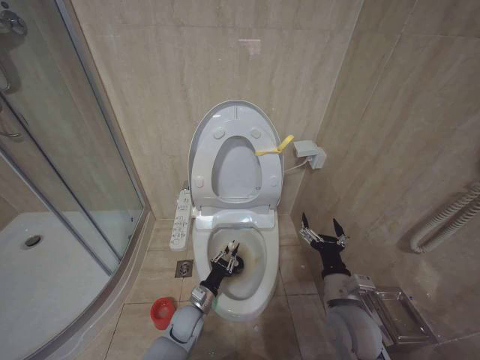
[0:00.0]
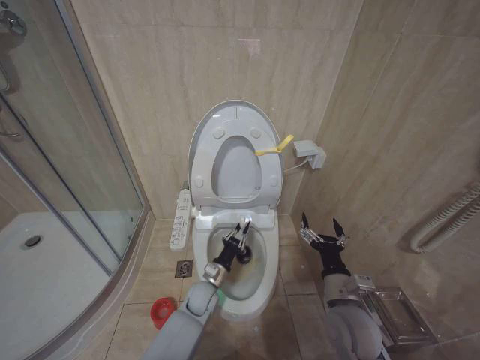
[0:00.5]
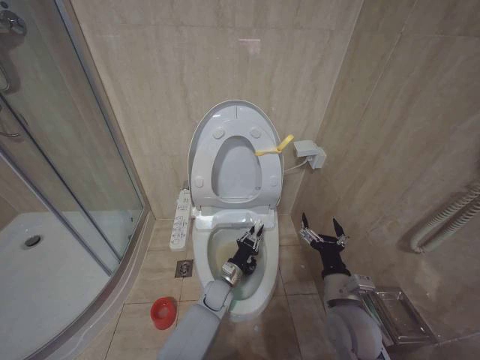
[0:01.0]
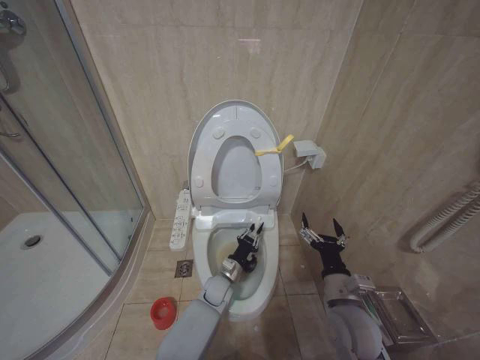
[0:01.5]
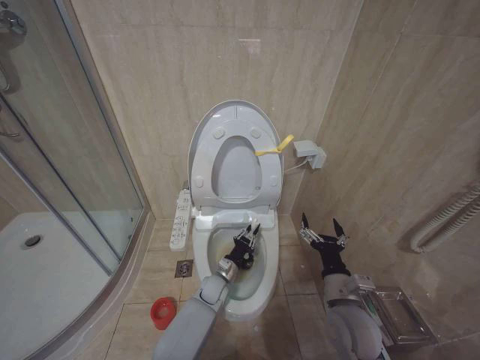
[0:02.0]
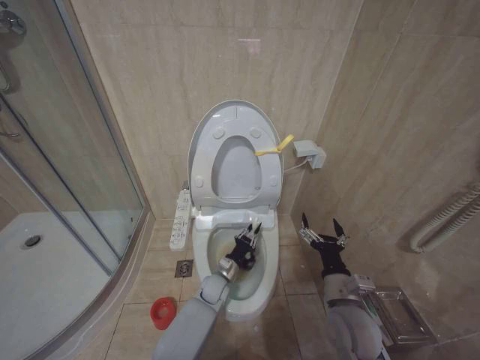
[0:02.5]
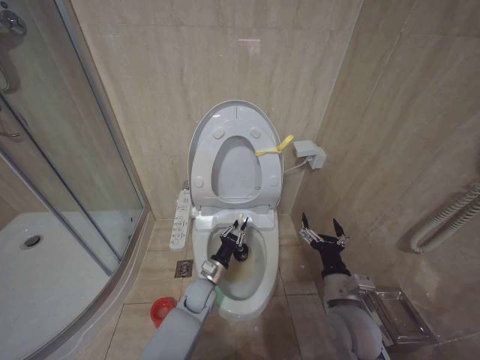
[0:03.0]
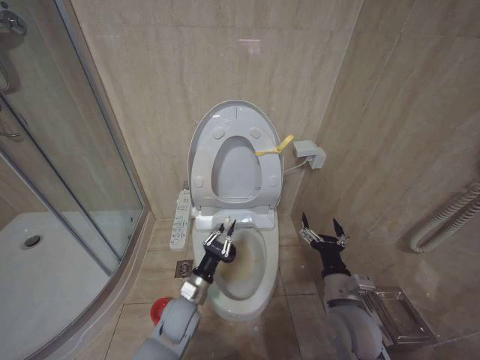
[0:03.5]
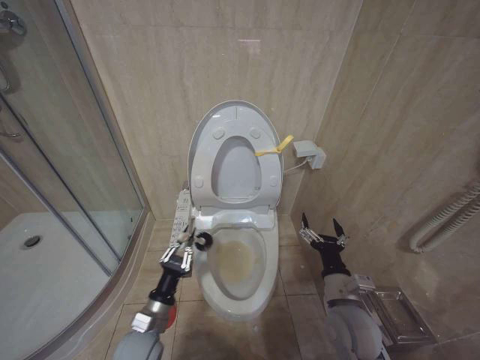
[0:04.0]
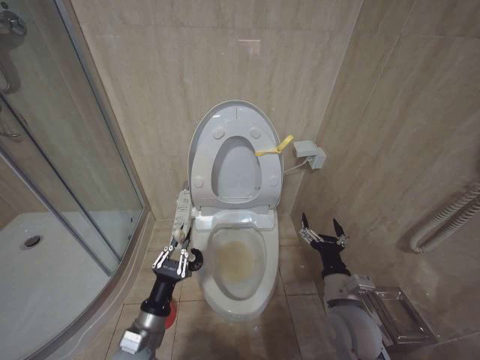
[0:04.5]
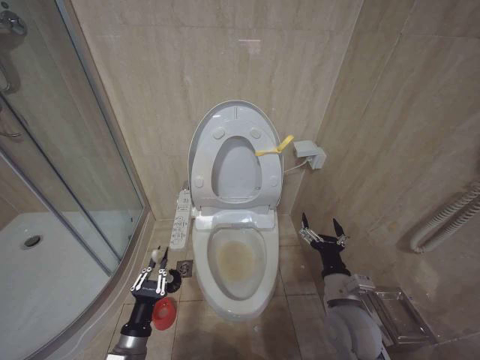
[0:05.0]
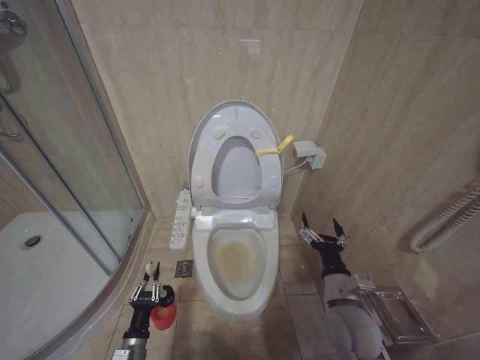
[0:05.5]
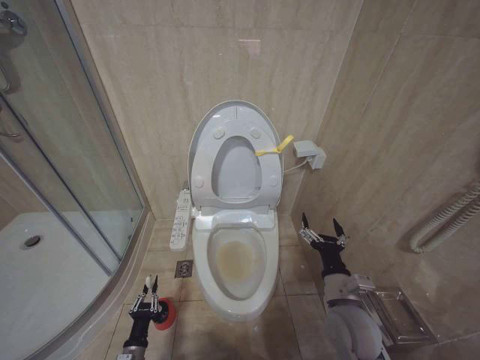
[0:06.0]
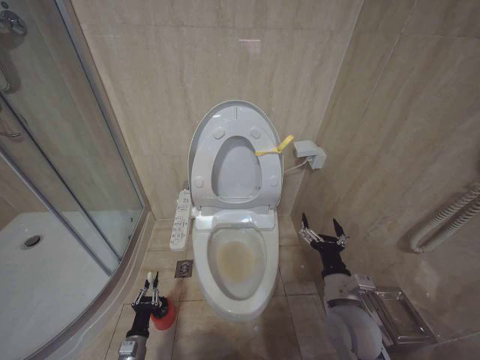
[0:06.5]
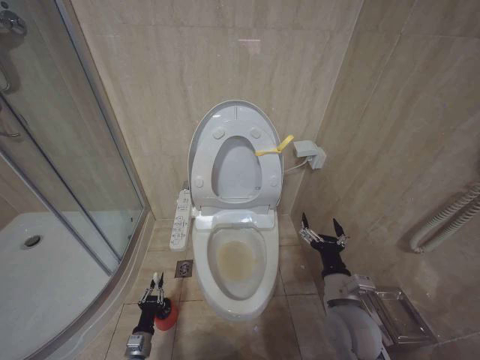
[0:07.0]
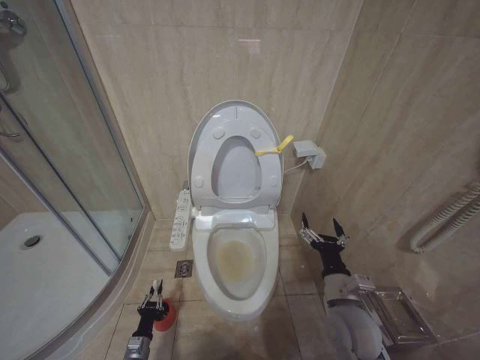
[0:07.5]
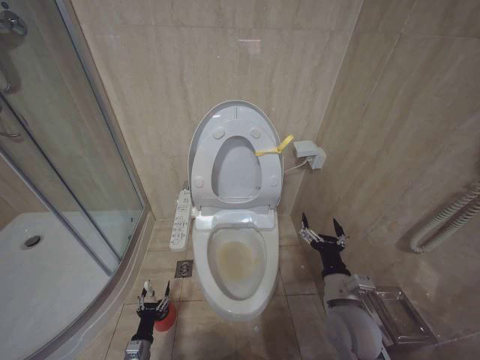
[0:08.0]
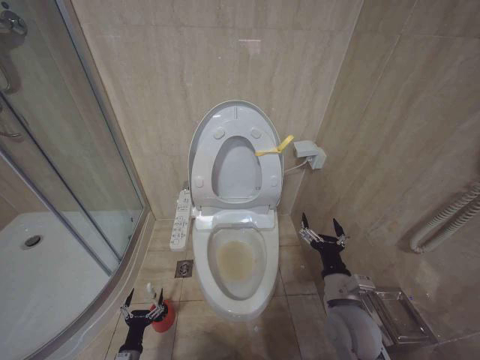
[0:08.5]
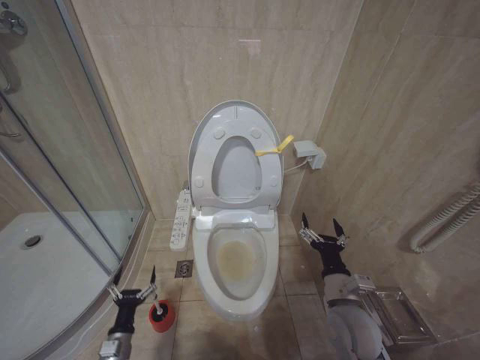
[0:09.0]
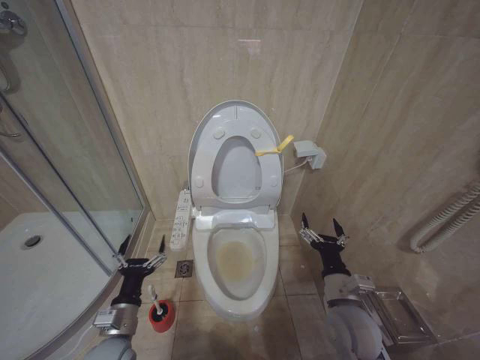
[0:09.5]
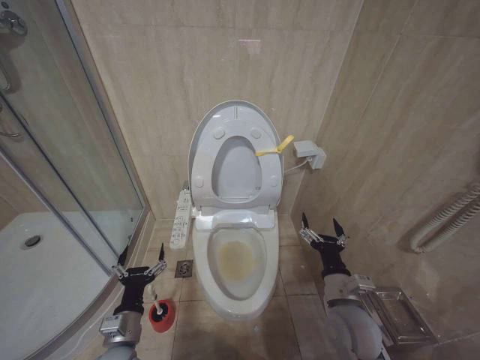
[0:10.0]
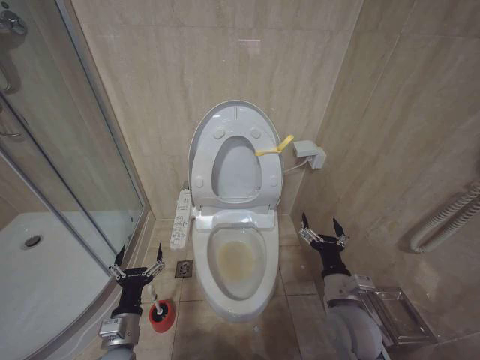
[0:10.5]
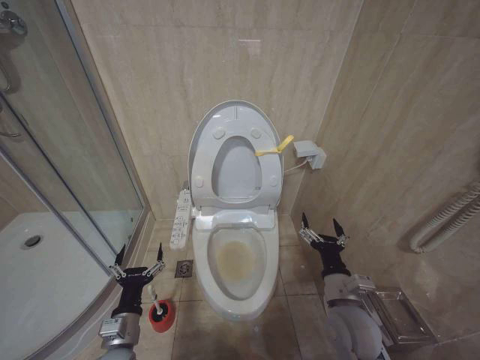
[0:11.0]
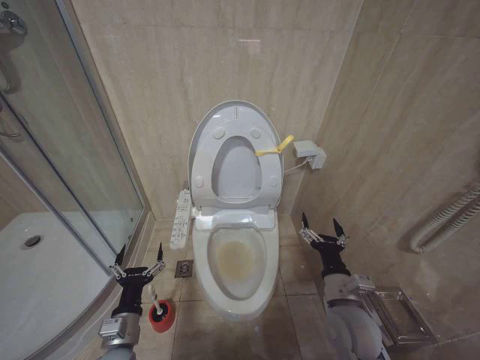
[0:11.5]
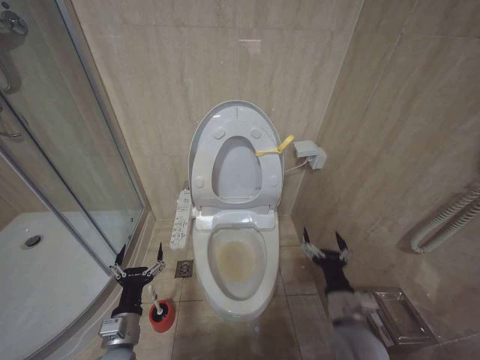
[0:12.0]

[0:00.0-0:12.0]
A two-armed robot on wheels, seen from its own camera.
Task of the whole recording: Open the toilet lid, clean the toilet bowl with a toilet brush, close the toilet lid, and flush.
0:00.0 to 0:02.0: The left gripper travels to the right and forward by about 10 cm.
0:02.0 to 0:04.0: The left gripper shifts approximately 25 cm backward, to the left and upward.
0:04.0 to 0:06.0: The left gripper goes about 20 cm downward and to the left.
0:06.0 to 0:08.0: The left gripper ends up roughly 5 cm from where it was.
0:08.0 to 0:10.0: The left gripper heads upward, covering some 25 cm, and opens up.
0:10.0 to 0:12.0: The grippers make only small movements.

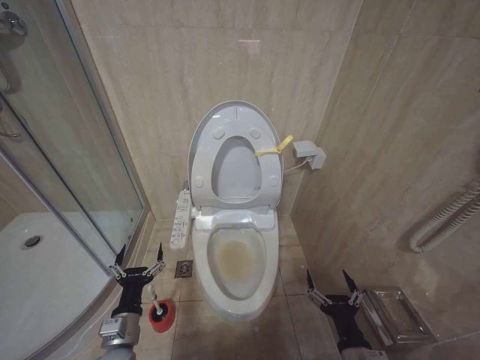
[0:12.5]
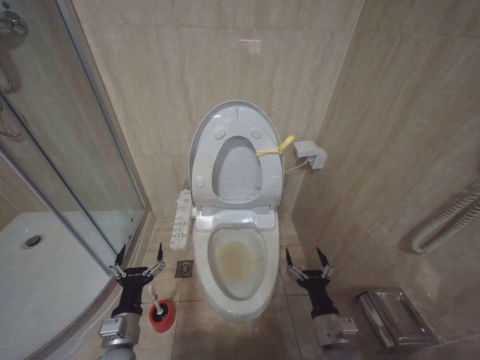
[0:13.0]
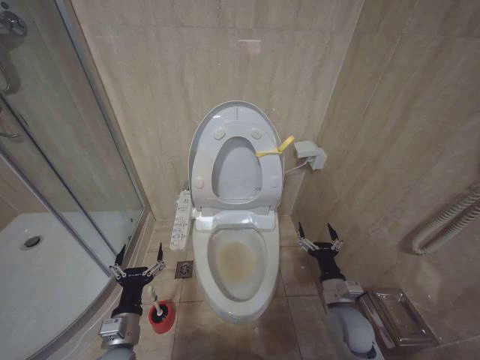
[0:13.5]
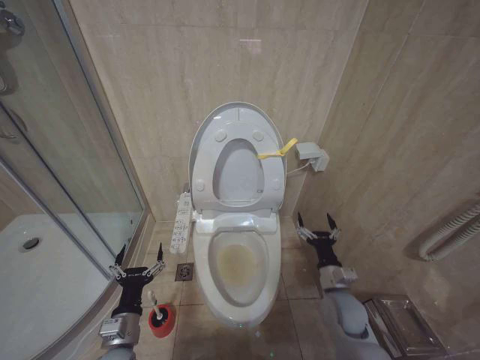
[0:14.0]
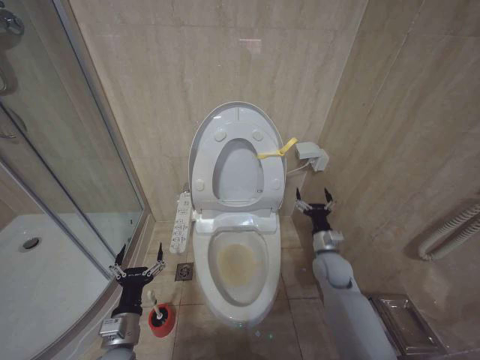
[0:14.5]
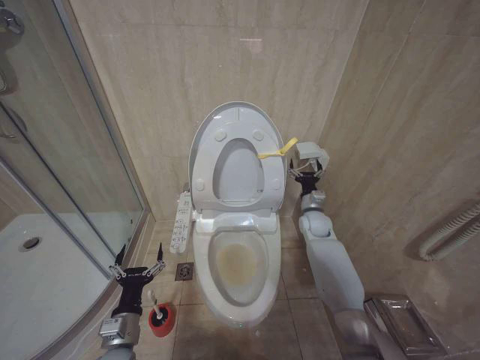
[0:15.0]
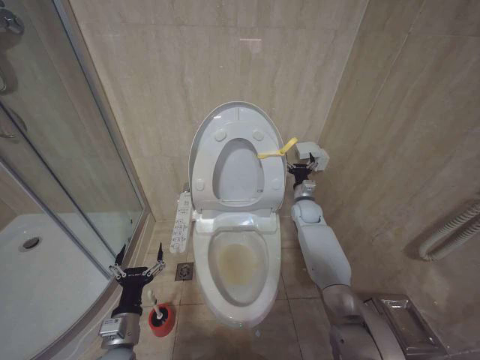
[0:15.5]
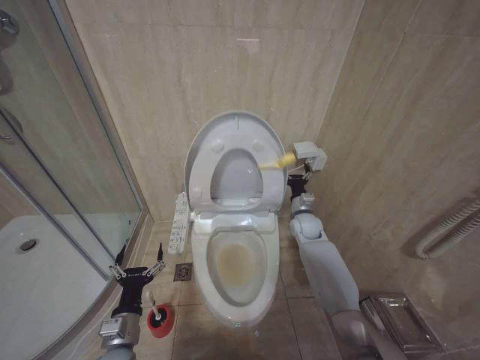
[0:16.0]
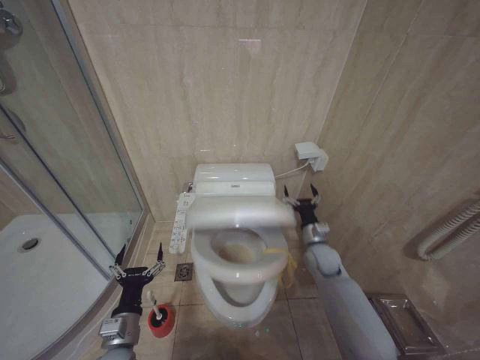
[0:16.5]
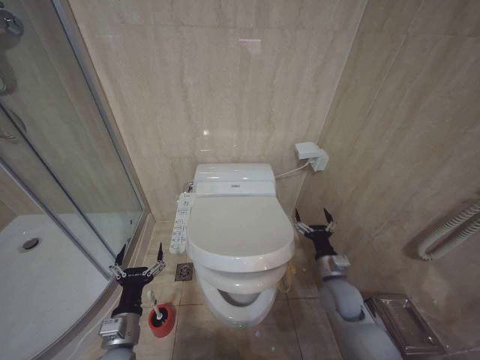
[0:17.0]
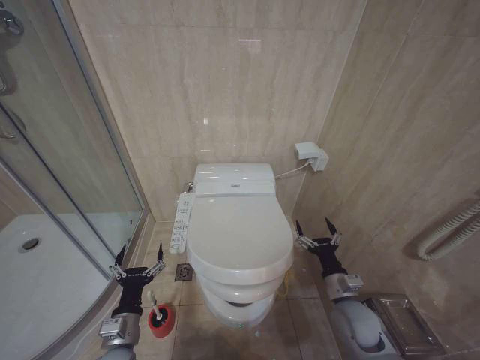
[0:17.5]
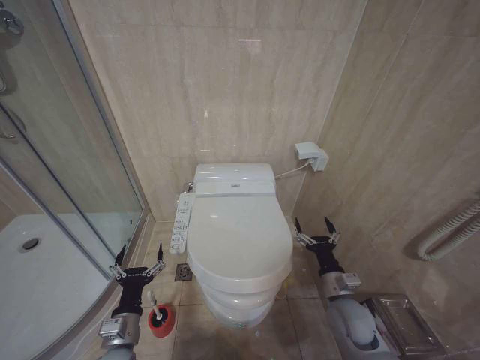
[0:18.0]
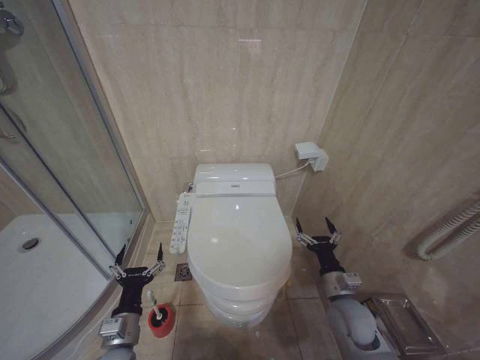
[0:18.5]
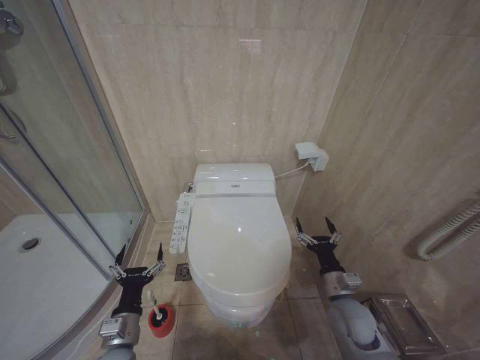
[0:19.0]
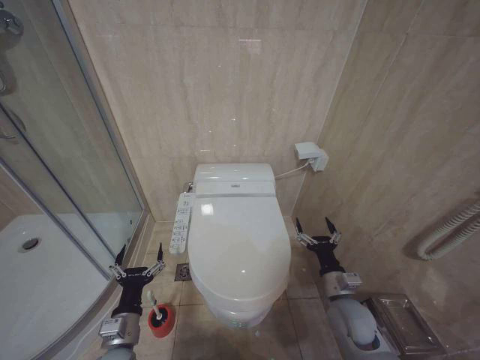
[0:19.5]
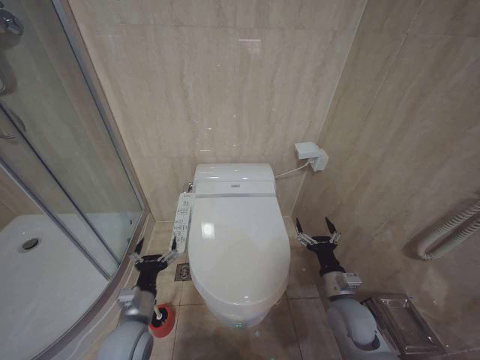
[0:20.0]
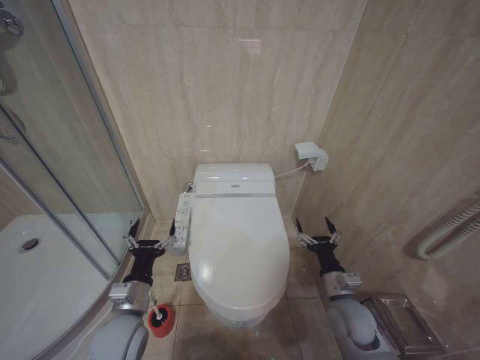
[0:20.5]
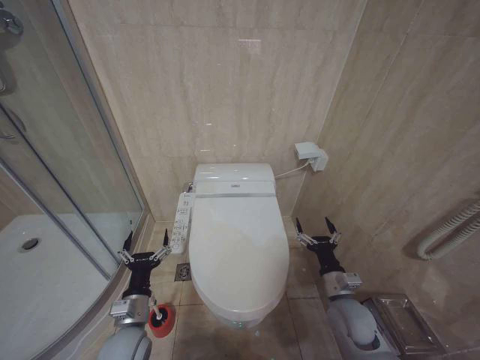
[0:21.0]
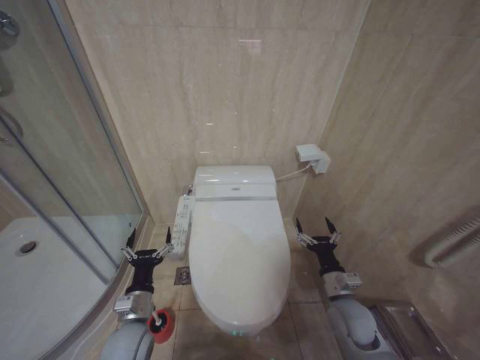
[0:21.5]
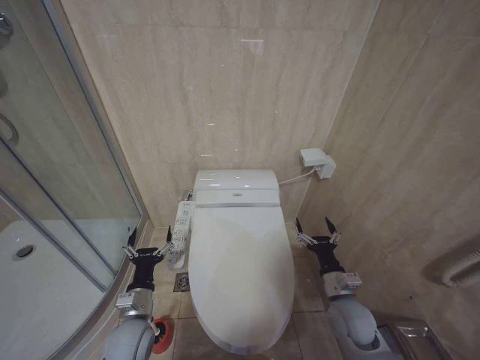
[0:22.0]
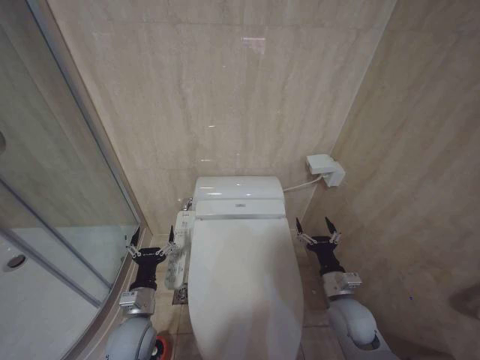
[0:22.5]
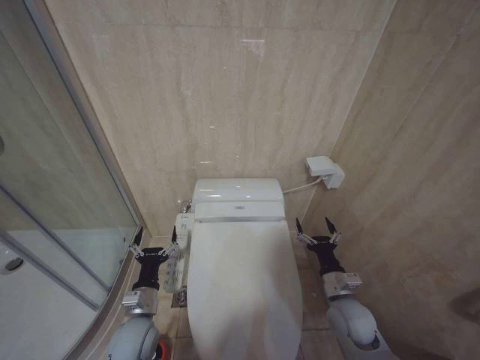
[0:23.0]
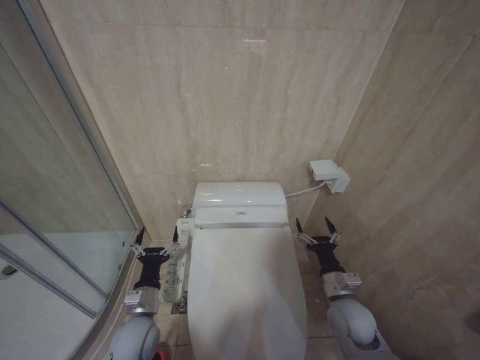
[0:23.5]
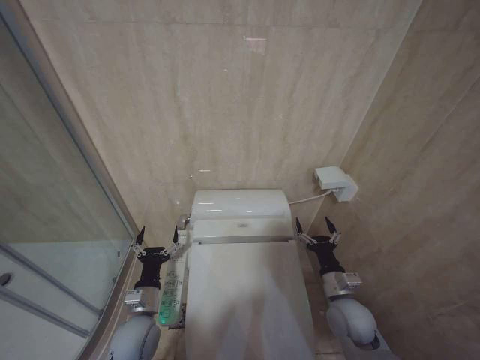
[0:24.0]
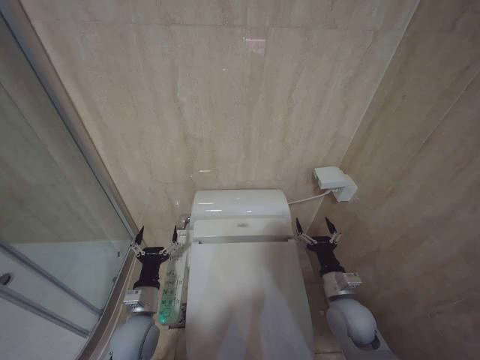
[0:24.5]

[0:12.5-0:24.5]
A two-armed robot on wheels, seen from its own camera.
Task of the whole recording: Open the toilet lid, clean the toilet bowl with a toilet brush, close the toilet lid, and flush.
0:12.5 to 0:14.5: The right gripper shifts roughly 25 cm forward.
0:14.5 to 0:16.5: The right gripper heads forward, covering approximately 5 cm.
0:16.5 to 0:18.5: The right gripper is displaced backward by about 15 cm.
0:18.5 to 0:20.5: The left gripper shifts some 5 cm upward.
0:20.5 to 0:22.5: The left gripper is displaced downward by about 5 cm.
0:22.5 to 0:24.5: Both grippers stay about where they are.

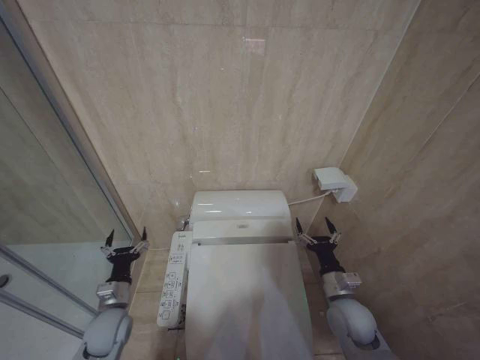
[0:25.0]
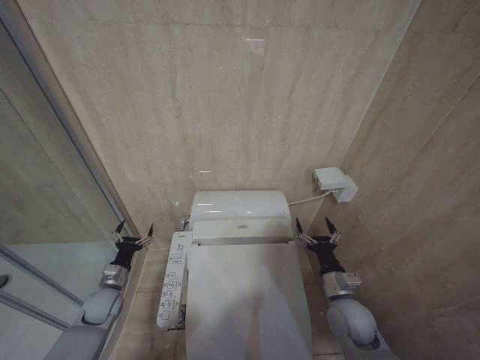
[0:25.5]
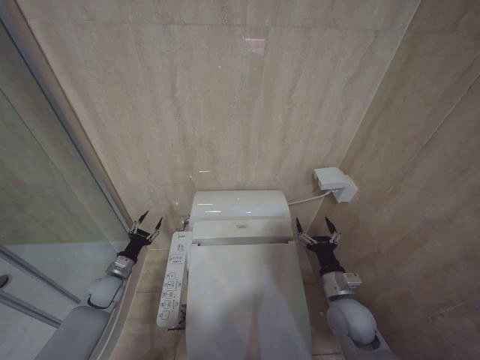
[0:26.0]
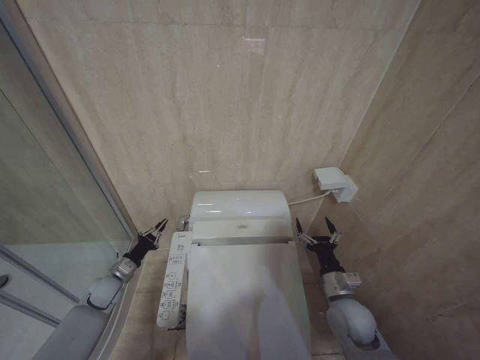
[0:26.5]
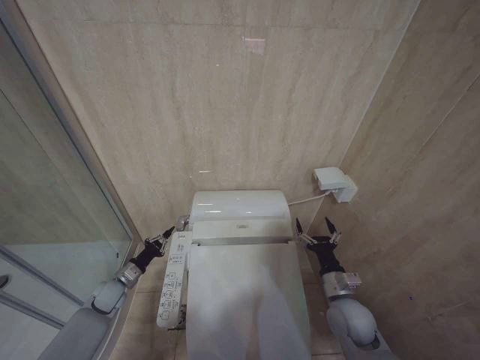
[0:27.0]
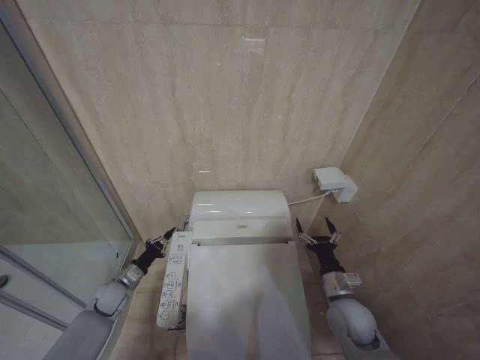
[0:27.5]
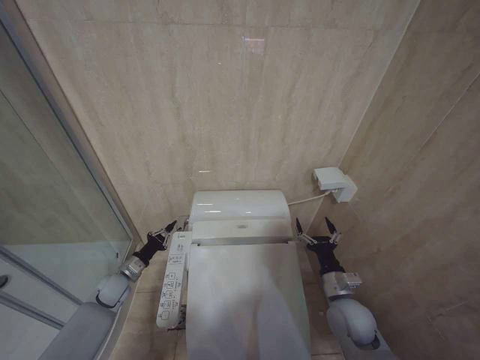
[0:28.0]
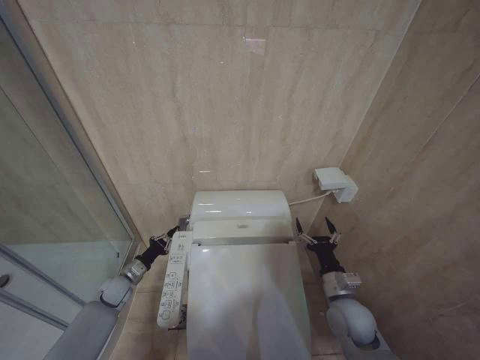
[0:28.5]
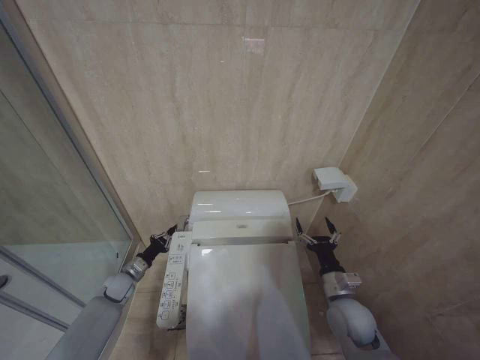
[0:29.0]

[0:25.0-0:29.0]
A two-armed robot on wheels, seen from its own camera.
Task of the whole recording: Open the toilet lid, clean the toilet bowl with a toilet brush, close the toilet lid, and flush.
0:25.0 to 0:27.0: The left gripper goes about 15 cm forward, to the left and downward, and closes its fingers.
0:27.0 to 0:29.0: The grippers move only a little.
